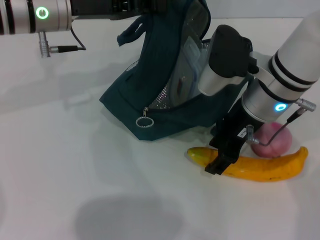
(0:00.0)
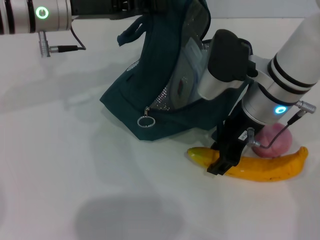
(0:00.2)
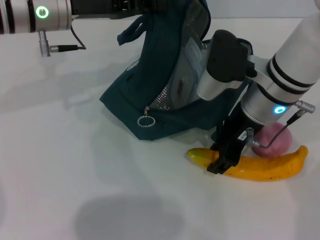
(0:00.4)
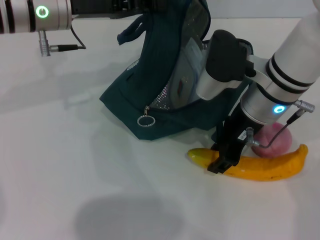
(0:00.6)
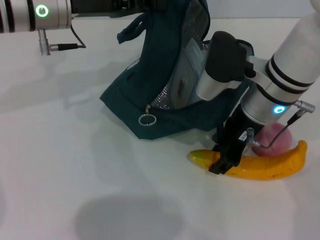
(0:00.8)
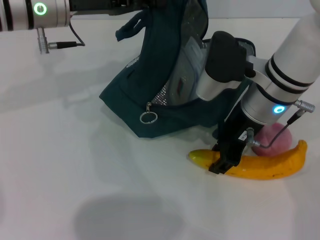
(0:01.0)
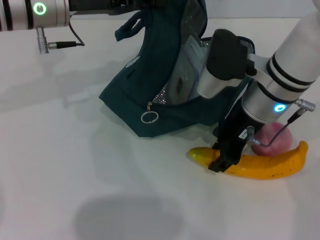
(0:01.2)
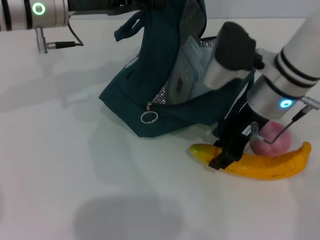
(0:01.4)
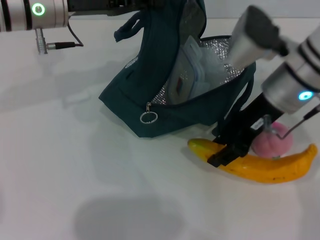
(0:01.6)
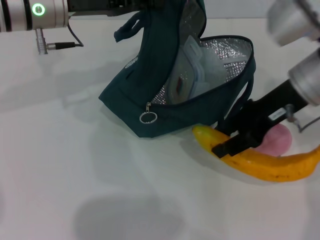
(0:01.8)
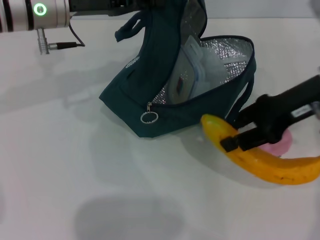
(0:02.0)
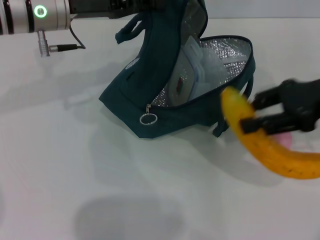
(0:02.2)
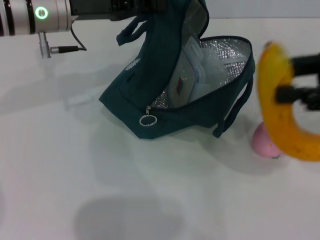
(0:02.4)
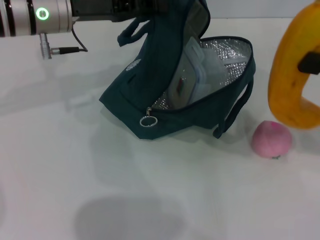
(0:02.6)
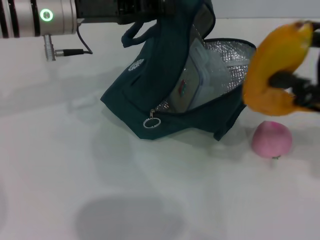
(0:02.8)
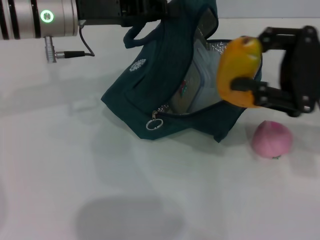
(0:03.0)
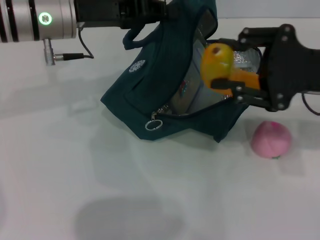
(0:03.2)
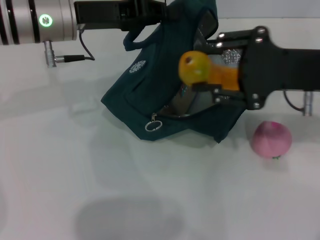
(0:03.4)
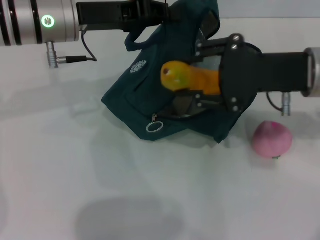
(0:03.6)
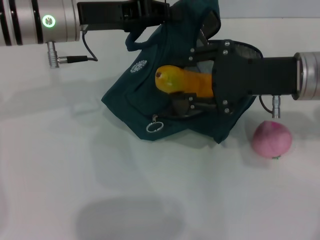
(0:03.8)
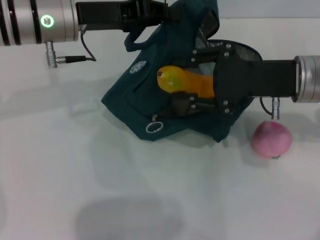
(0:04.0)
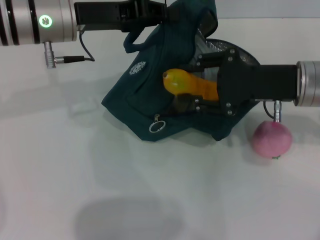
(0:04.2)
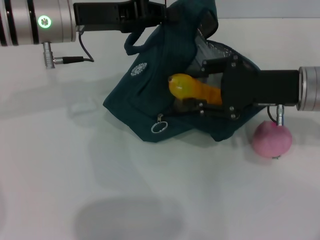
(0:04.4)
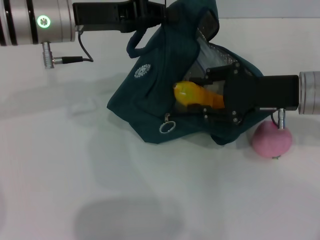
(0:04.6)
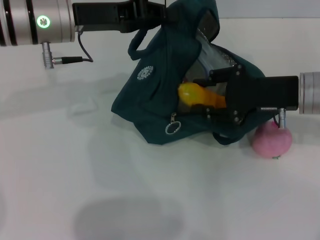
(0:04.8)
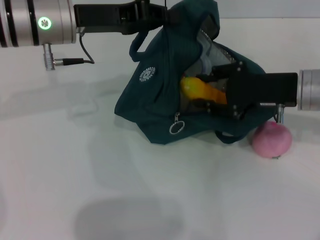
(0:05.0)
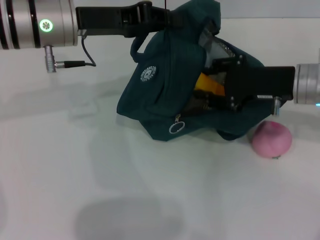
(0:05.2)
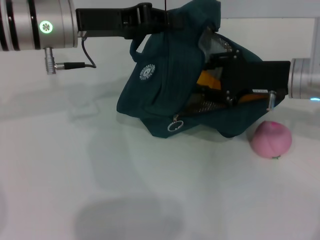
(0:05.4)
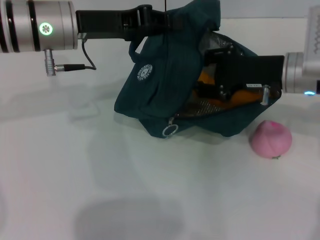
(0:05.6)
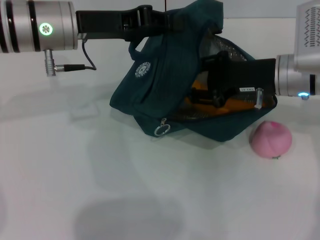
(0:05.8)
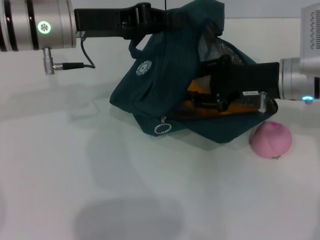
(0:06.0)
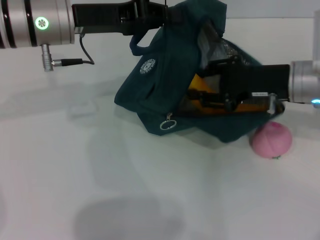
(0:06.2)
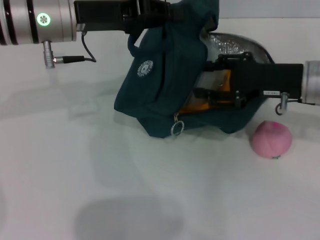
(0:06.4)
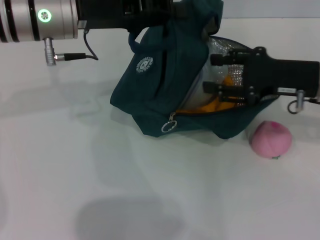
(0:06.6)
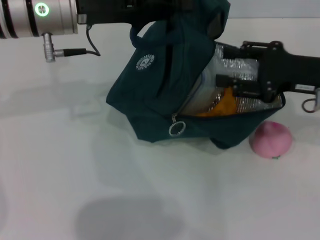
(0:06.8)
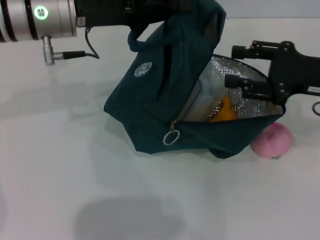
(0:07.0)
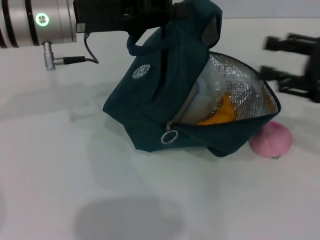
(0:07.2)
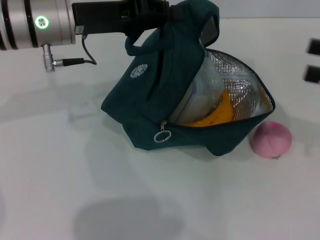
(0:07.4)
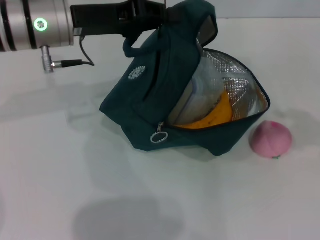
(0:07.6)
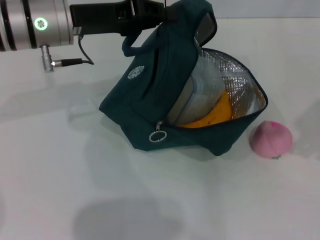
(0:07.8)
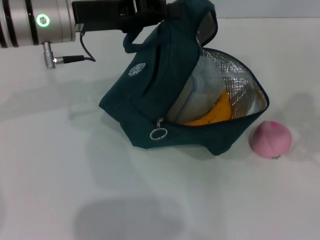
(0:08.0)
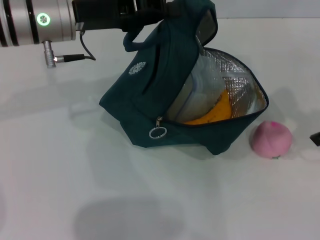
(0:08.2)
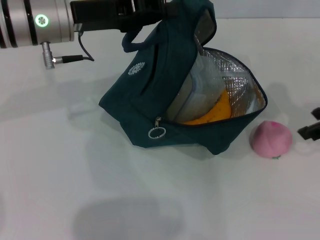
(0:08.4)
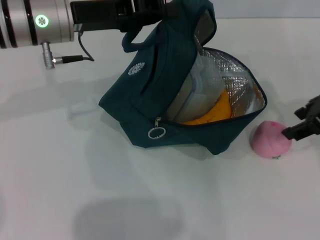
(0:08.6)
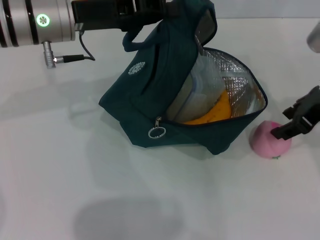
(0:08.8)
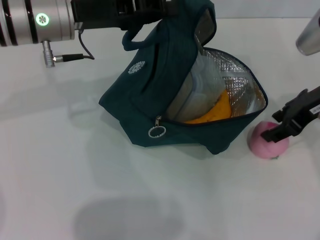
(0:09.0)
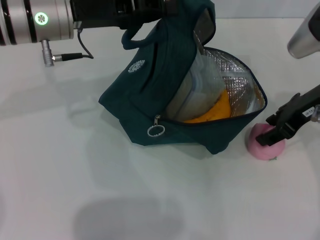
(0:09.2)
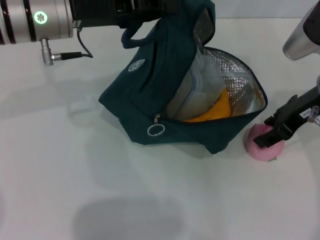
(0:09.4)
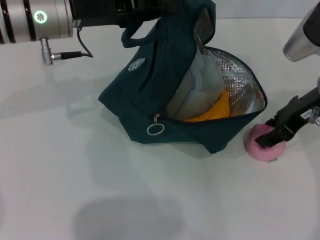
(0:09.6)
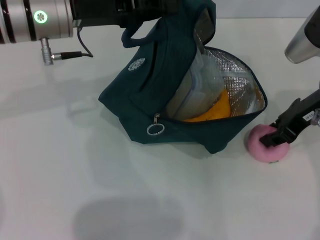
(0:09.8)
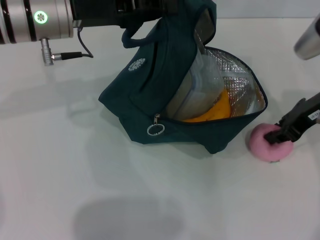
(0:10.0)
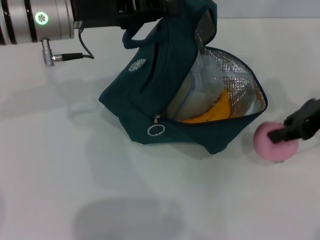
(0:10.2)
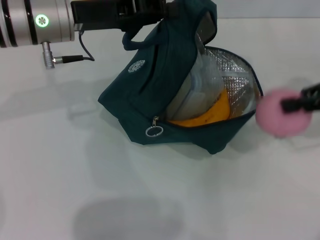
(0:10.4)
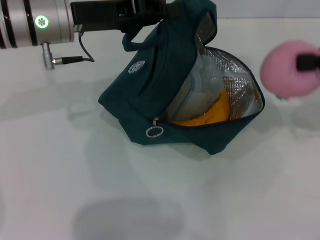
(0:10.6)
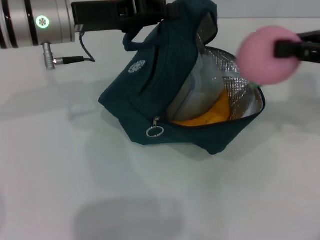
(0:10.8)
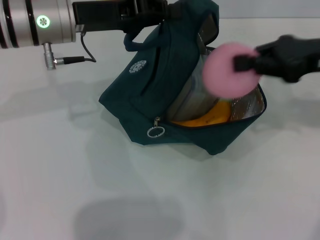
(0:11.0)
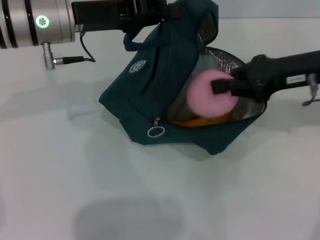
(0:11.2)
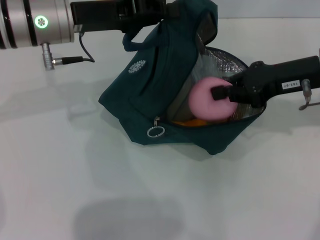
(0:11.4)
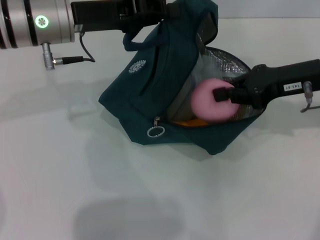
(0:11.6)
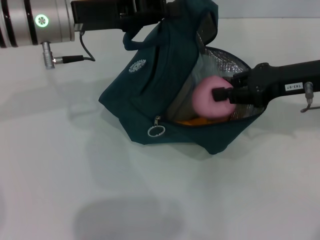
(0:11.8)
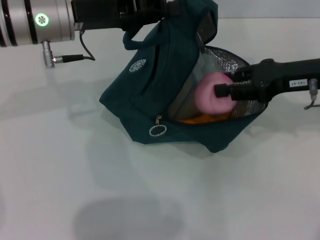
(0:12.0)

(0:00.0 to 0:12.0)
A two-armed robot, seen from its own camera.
Step, 0:01.4 - 0:07.0: Put the banana into the lunch bag with your right hand.
Step, 0:07.2 - 0:10.0: Grab the peach with your right hand.
0:00.0 - 0:01.6: The grippers stay close to where they were, moving slightly.
0:01.6 - 0:03.0: The right gripper heads to the right, covering approximately 10 cm.
0:03.0 - 0:04.4: The right gripper moves approximately 5 cm.
0:06.0 - 0:07.6: The right gripper moves to the right, backward and upward, some 20 cm.
0:07.6 - 0:09.0: The right gripper is displaced to the left and forward by approximately 15 cm.
0:09.0 - 0:10.4: The right gripper is displaced to the right by roughly 10 cm, and closes up.
0:10.4 - 0:12.0: The right gripper moves to the left, roughly 5 cm.

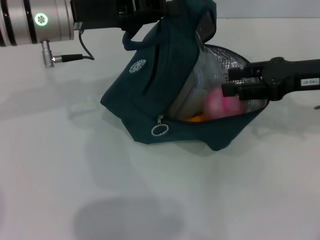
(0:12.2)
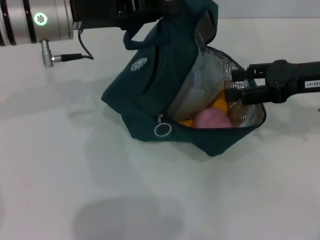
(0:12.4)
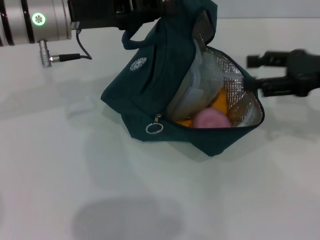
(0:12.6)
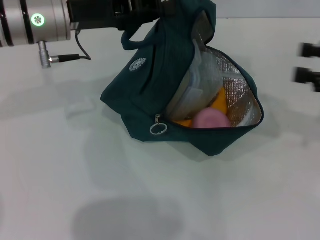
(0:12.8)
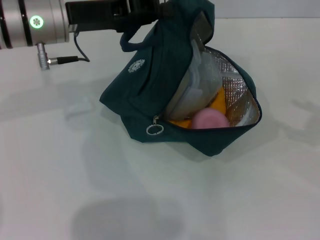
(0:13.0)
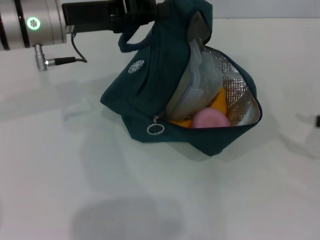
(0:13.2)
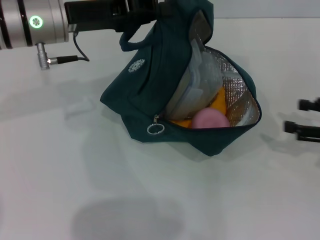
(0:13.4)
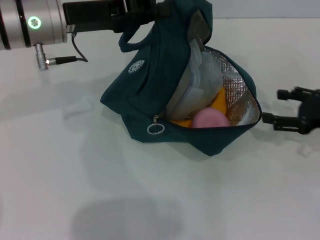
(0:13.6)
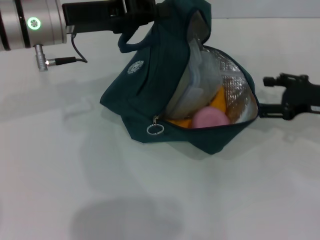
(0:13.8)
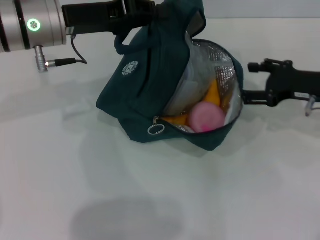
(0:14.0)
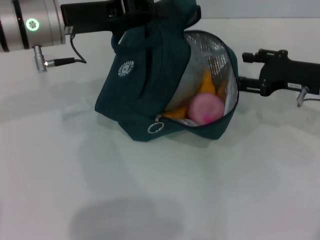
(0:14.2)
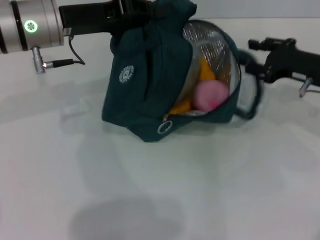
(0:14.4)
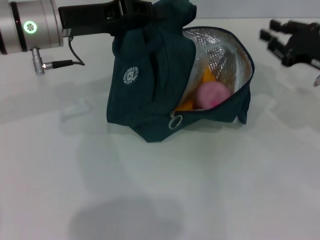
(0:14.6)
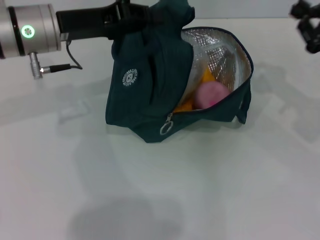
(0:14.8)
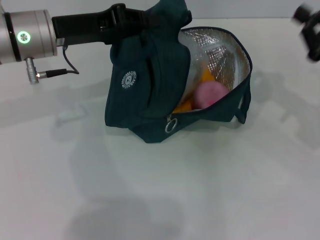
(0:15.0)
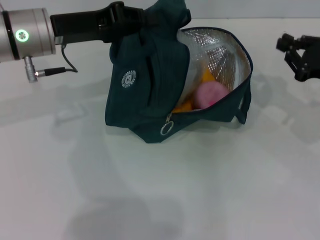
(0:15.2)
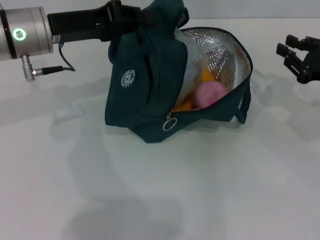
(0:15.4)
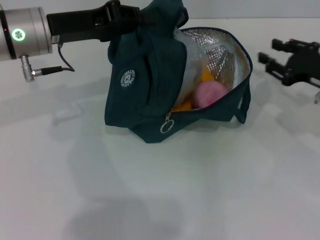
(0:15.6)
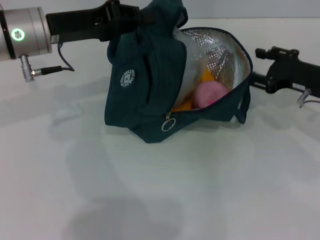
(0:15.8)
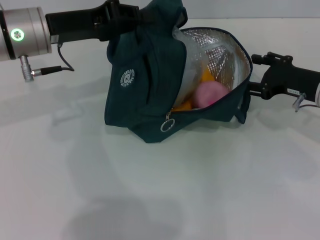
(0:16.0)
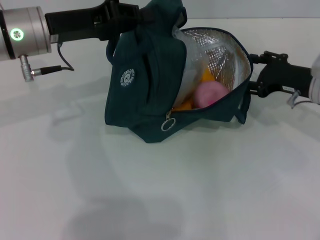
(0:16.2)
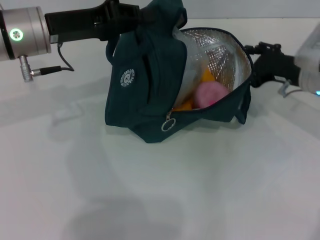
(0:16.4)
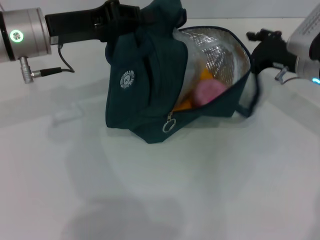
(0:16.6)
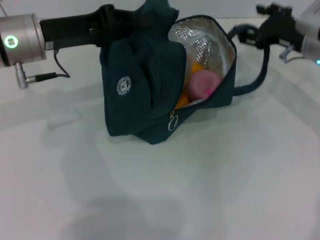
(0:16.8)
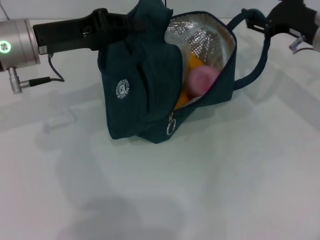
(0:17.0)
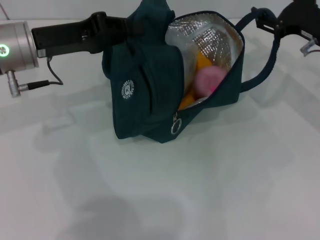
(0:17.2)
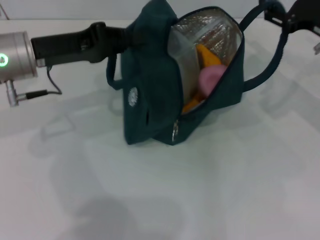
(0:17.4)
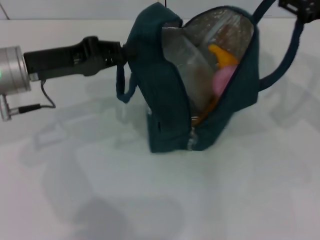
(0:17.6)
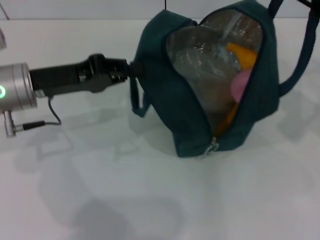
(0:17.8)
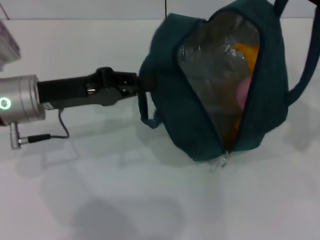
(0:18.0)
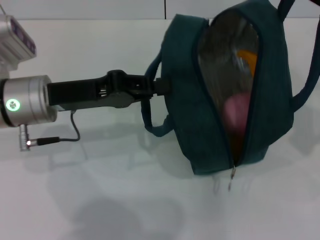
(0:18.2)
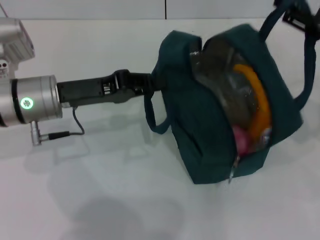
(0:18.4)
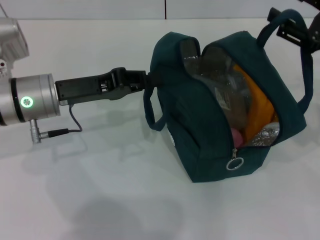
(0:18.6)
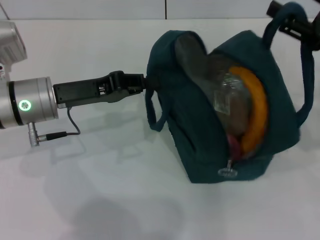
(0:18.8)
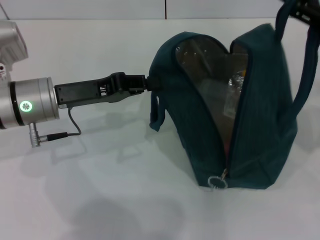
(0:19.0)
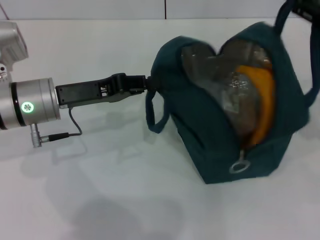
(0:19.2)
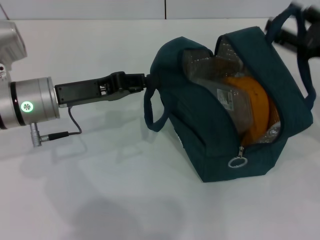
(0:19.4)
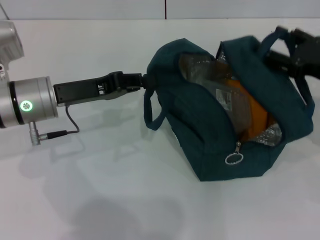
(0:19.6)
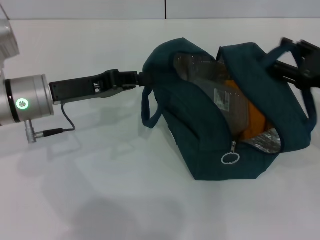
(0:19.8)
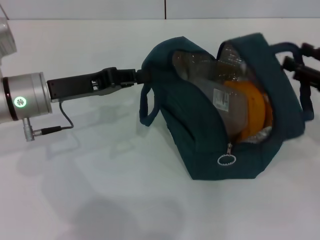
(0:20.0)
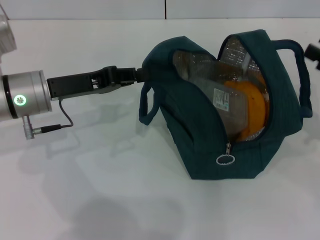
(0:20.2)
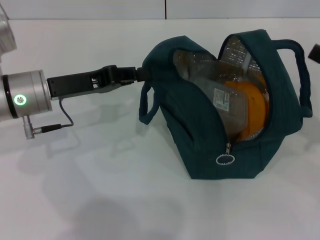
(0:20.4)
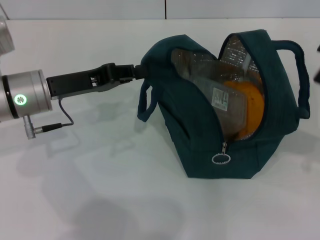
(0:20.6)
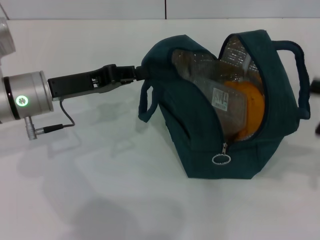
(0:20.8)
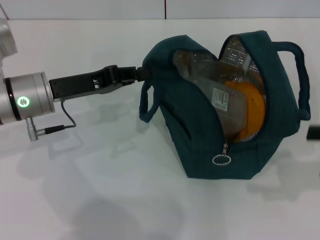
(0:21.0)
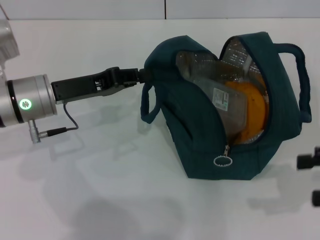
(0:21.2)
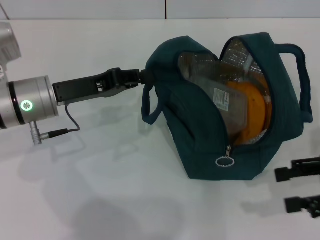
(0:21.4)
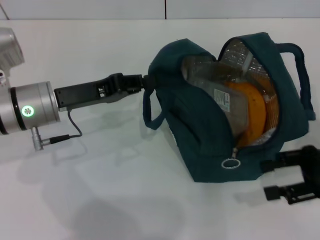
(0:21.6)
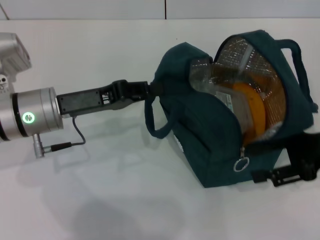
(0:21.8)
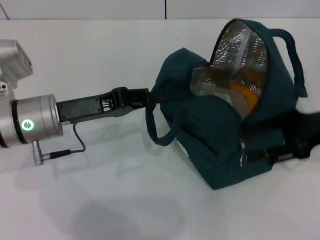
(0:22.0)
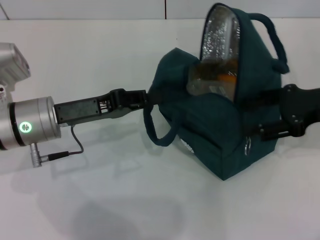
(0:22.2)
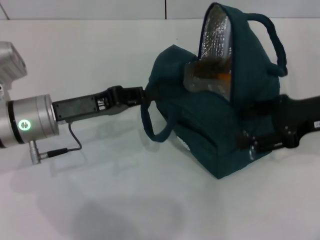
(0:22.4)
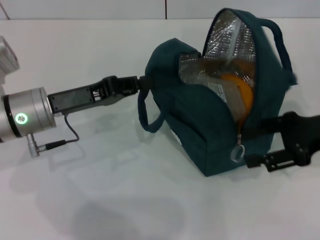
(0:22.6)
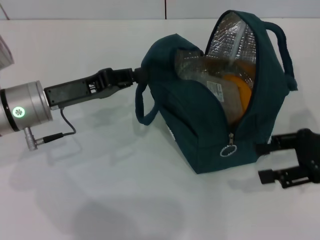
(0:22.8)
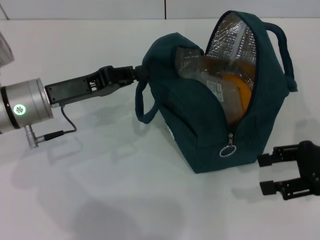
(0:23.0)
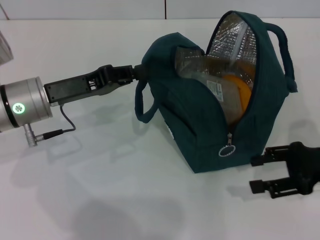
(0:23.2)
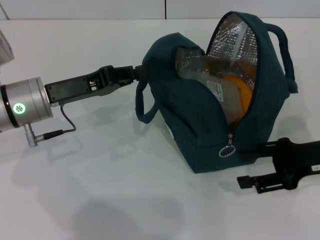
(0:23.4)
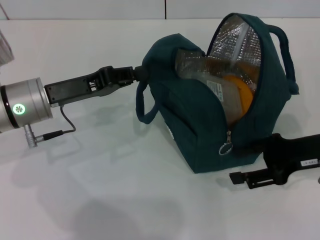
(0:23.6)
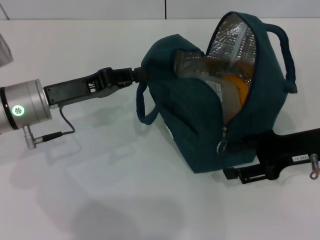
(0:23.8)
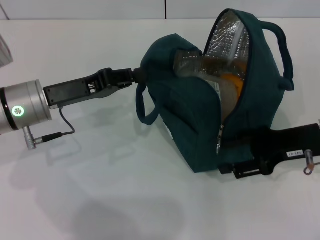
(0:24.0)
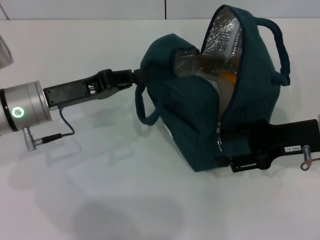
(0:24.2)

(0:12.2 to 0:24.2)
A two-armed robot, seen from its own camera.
Step, 0:13.4 - 0:20.2: Hold the lunch bag with your right hand.
0:12.2 - 0:13.8: The right gripper heads downward, covering some 5 cm, goes to the right and returns, about 15 cm each way, and opens up.
0:13.8 - 0:15.2: The right gripper closes.
0:15.2 - 0:16.6: The right gripper heads forward and to the left, covering approximately 10 cm, and opens.
0:16.6 - 0:18.2: The left gripper goes approximately 5 cm backward; the right gripper travels backward, upward and to the right by roughly 15 cm.
0:18.2 - 0:19.8: The right gripper heads downward, covering approximately 10 cm.
0:19.8 - 0:21.2: The right gripper travels backward by roughly 5 cm.
0:21.2 - 0:22.6: The right gripper shifts about 10 cm to the left and forward.
0:22.6 - 0:24.2: The right gripper moves some 5 cm.
